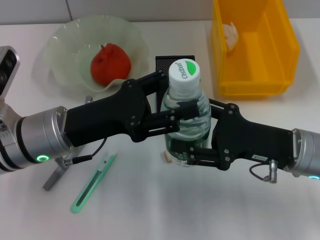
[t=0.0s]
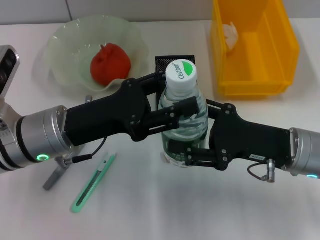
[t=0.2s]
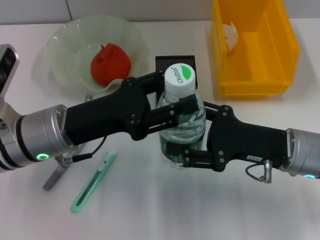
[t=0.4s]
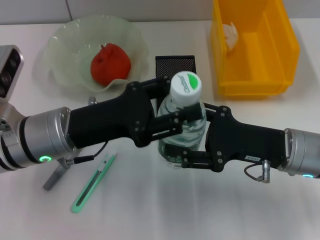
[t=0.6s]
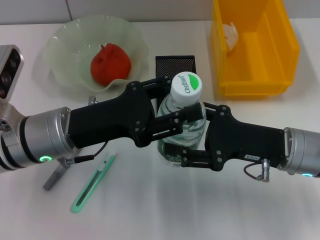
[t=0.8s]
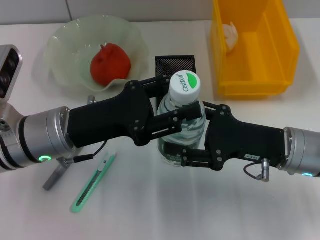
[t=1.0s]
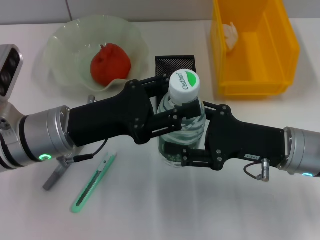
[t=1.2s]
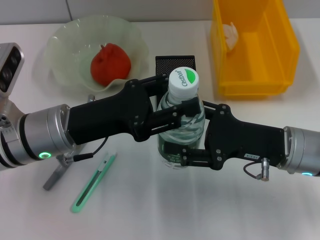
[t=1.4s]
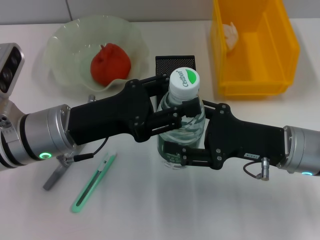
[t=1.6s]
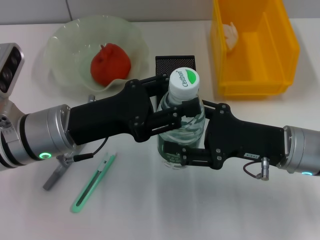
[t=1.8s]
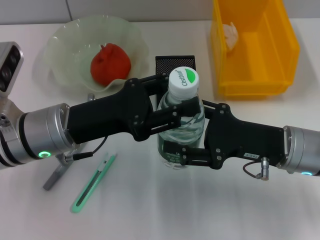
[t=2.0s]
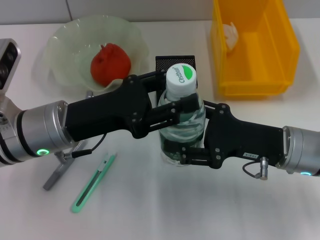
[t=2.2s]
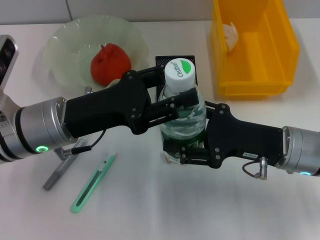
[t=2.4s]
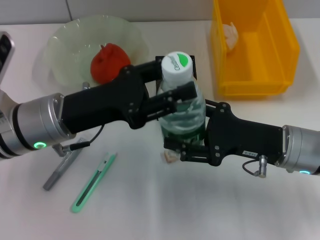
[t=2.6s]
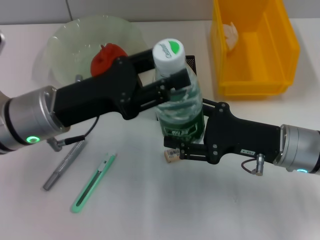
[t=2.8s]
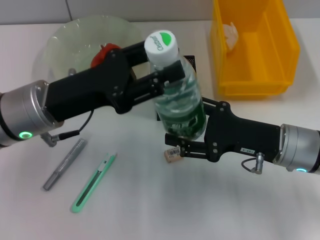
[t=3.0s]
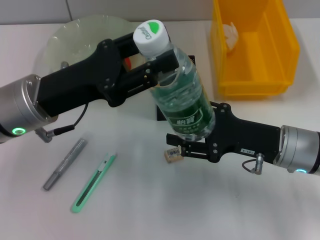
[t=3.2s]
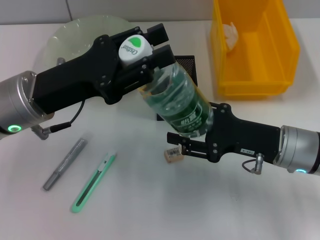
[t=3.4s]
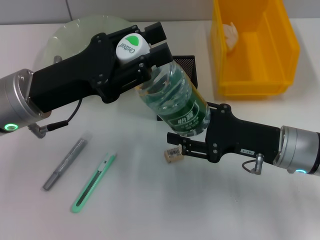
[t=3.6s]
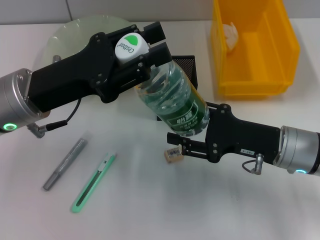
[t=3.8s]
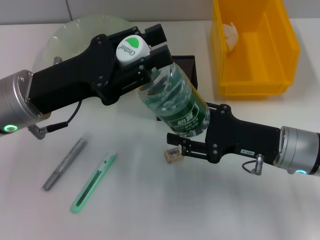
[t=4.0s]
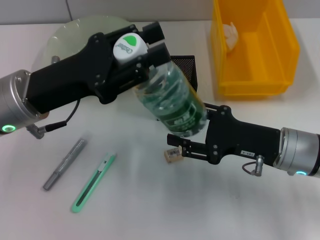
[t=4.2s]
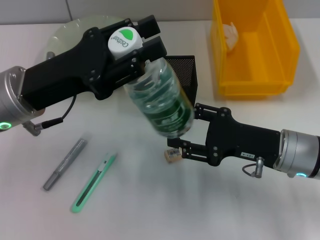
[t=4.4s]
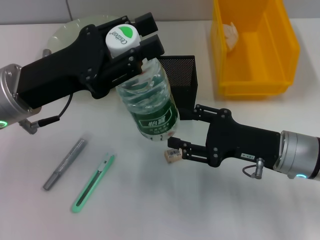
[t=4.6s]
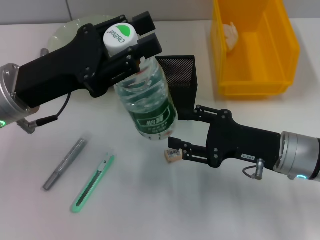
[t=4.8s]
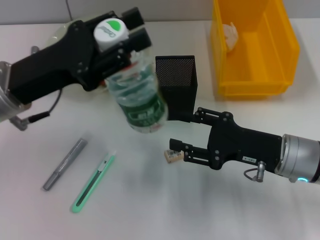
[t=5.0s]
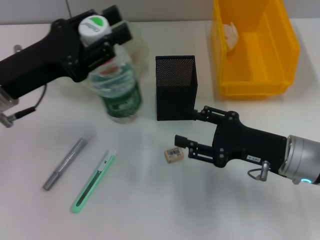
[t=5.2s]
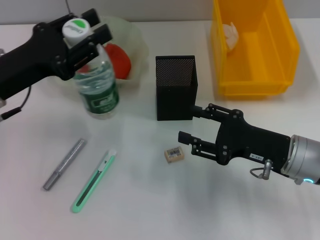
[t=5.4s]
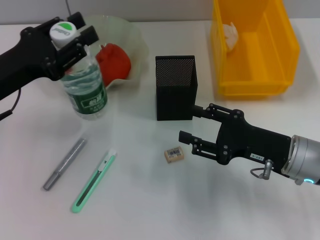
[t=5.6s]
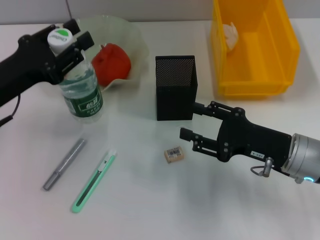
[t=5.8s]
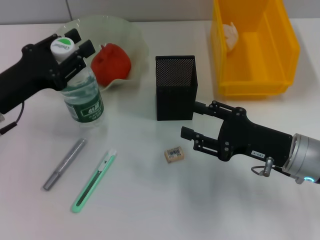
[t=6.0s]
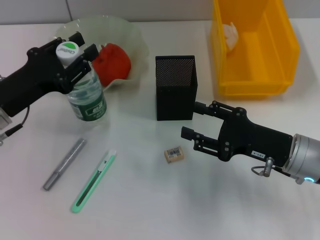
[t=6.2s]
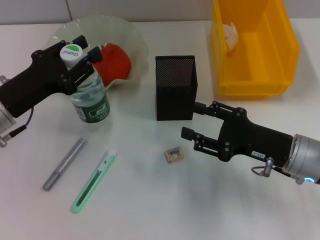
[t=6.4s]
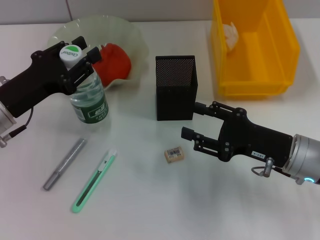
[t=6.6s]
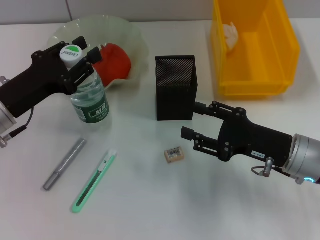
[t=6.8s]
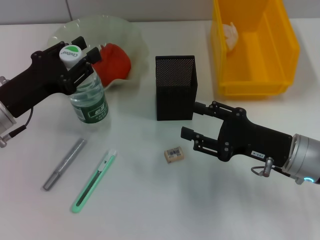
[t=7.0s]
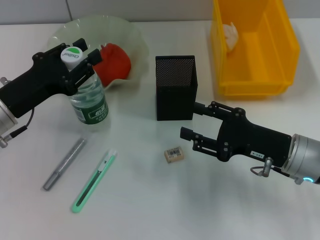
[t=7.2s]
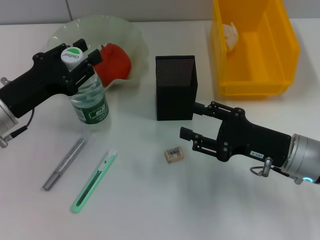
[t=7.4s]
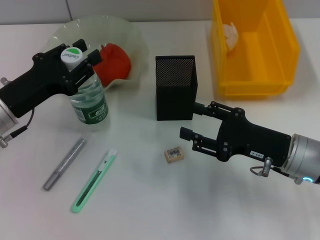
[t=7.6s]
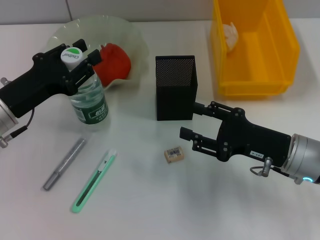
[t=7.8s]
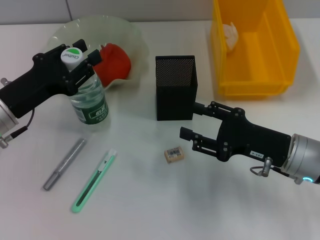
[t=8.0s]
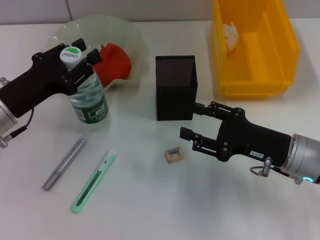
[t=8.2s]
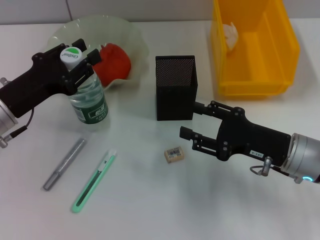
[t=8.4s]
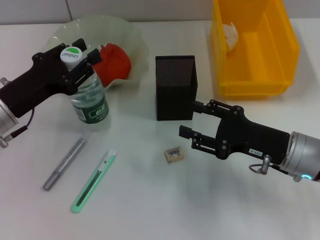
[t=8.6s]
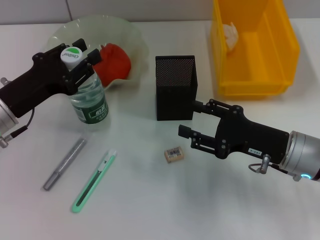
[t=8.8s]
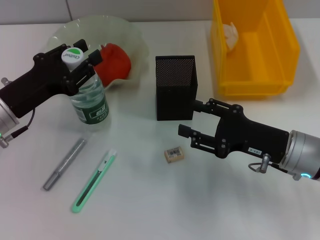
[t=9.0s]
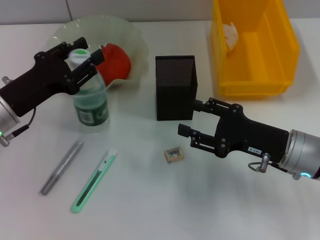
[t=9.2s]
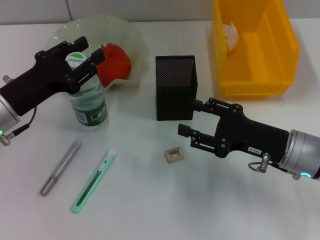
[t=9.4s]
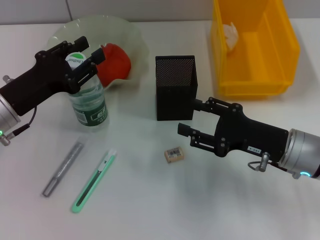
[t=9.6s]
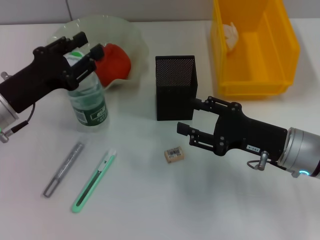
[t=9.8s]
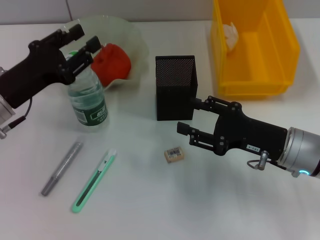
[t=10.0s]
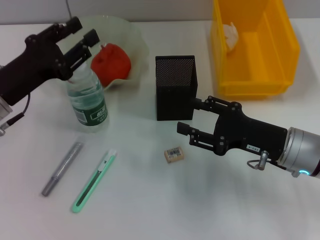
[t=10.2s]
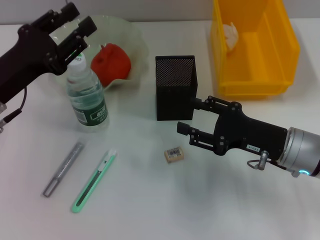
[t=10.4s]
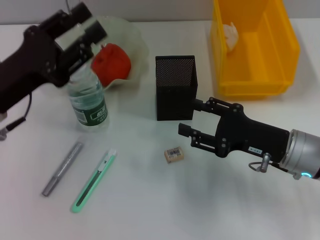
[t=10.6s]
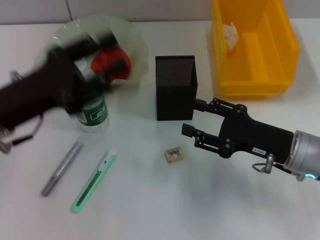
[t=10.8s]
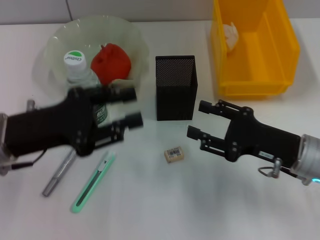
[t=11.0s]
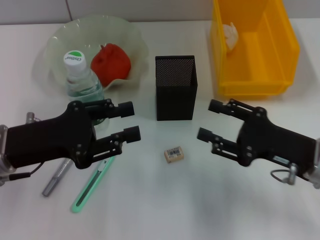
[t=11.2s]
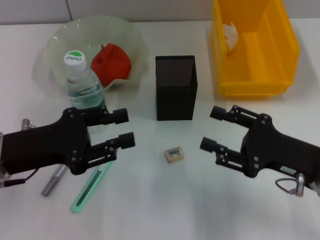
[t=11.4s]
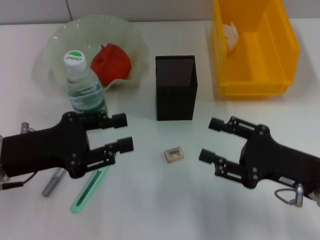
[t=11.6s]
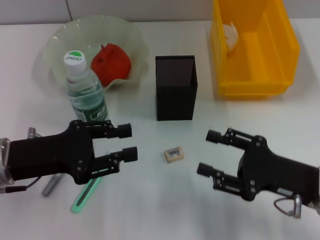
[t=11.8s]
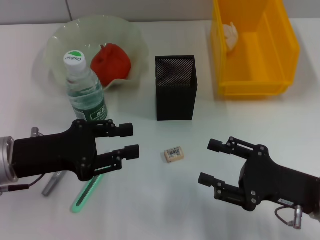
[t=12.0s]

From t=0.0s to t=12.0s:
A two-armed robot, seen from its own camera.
Step, from t=0.0s to t=3.4s: Pass the water bottle from the right hand to the left hand.
Step, from t=3.8s to t=9.8s: Place the water bottle on the table with the left hand.
From t=0.0s to t=1.6s: Both grippers stay put.
From t=4.4s to t=6.0s: The left gripper is displaced to the left by some 5 cm.
From t=6.0s to t=7.6s: There are only small adjustments of the grippers.
From t=7.6s to t=9.0s: The two grippers keep their place.
From t=9.0s to t=10.4s: The grippers stay close to where they were, moving slightly.
From t=10.4s to t=12.0s: The right gripper travels backward by roughly 5 cm.

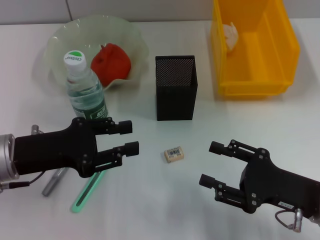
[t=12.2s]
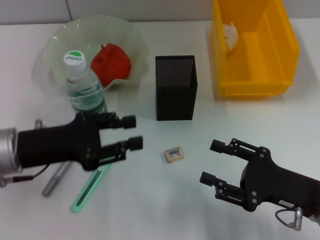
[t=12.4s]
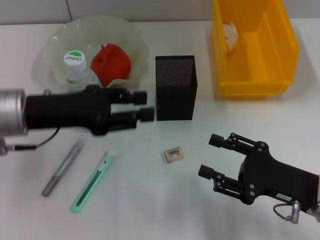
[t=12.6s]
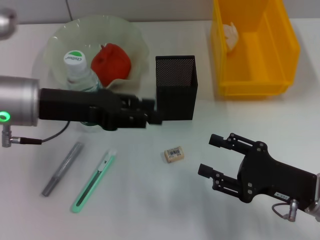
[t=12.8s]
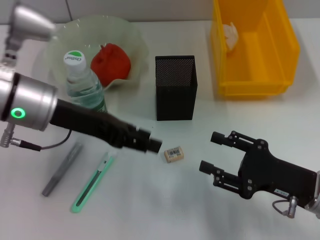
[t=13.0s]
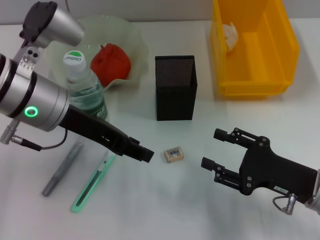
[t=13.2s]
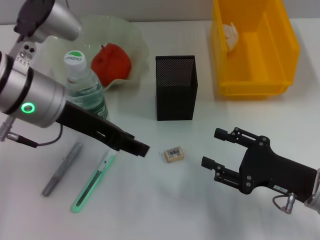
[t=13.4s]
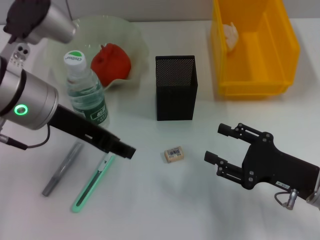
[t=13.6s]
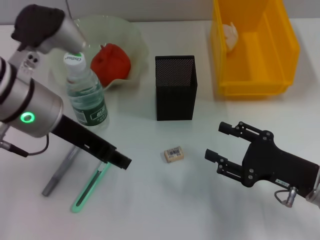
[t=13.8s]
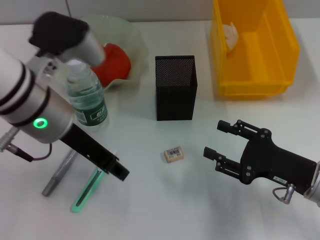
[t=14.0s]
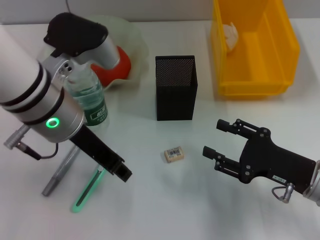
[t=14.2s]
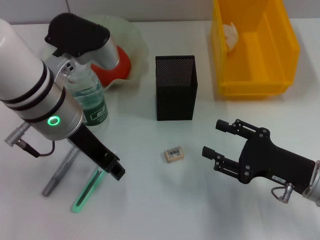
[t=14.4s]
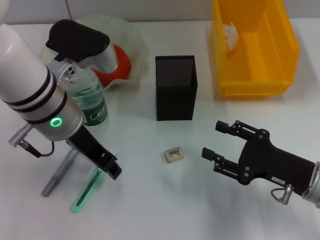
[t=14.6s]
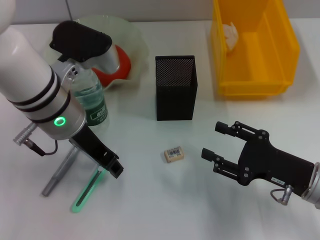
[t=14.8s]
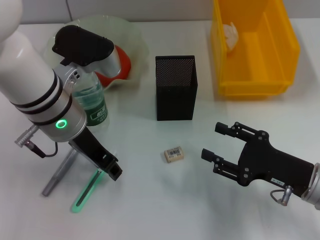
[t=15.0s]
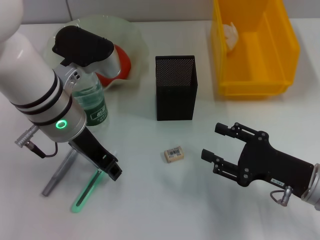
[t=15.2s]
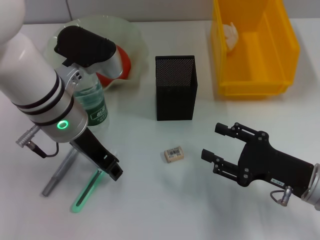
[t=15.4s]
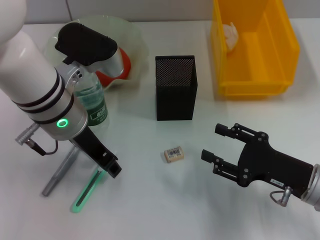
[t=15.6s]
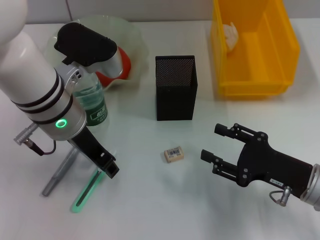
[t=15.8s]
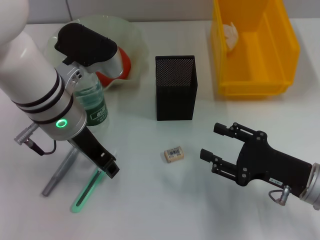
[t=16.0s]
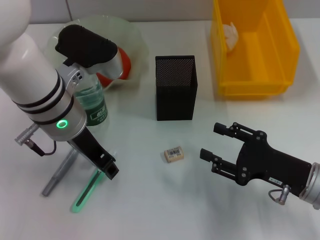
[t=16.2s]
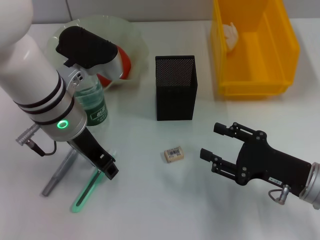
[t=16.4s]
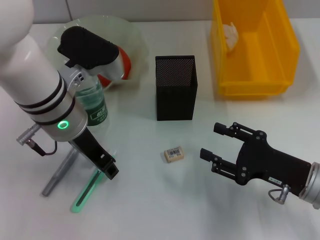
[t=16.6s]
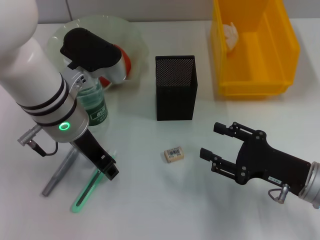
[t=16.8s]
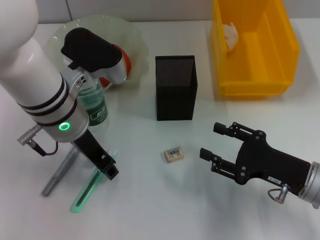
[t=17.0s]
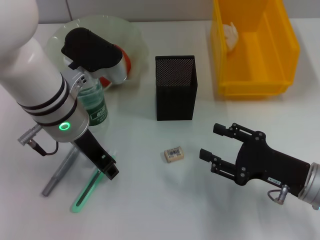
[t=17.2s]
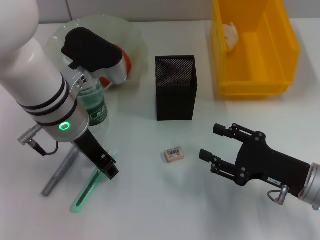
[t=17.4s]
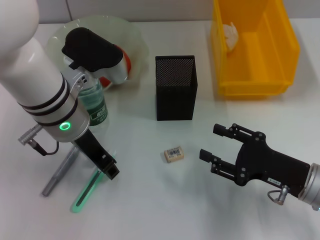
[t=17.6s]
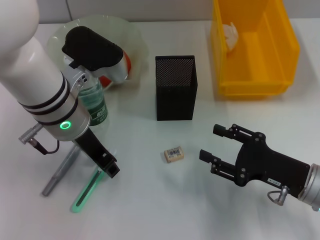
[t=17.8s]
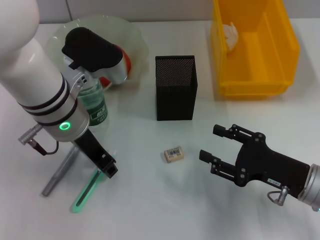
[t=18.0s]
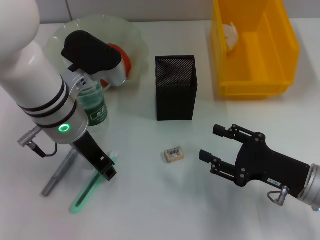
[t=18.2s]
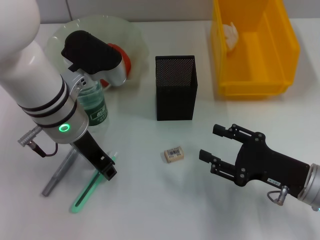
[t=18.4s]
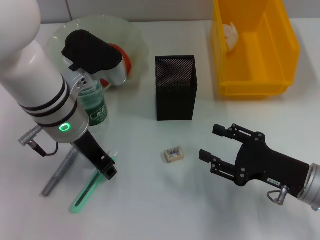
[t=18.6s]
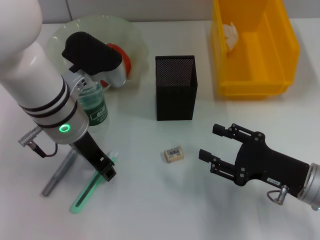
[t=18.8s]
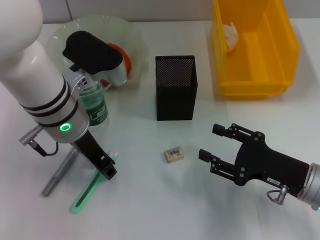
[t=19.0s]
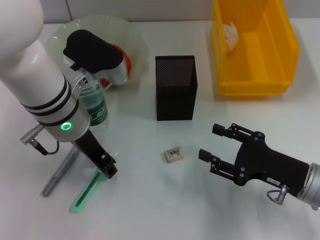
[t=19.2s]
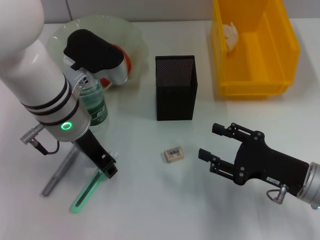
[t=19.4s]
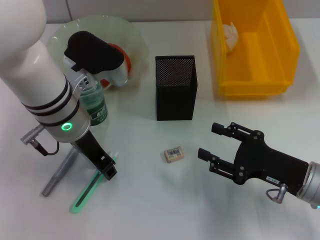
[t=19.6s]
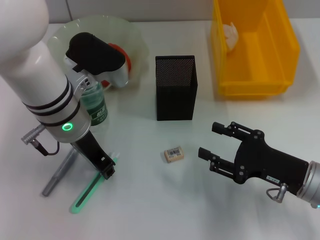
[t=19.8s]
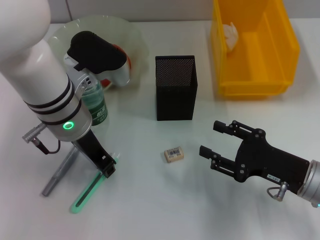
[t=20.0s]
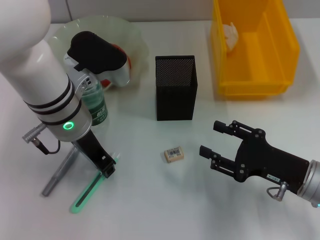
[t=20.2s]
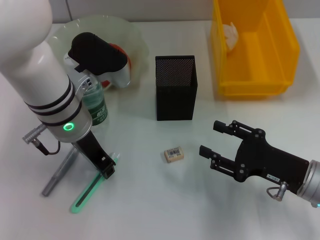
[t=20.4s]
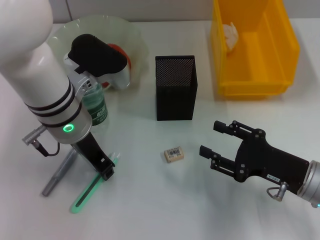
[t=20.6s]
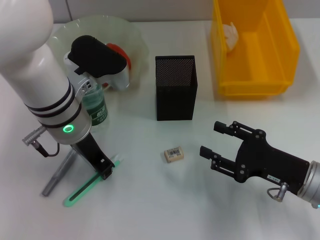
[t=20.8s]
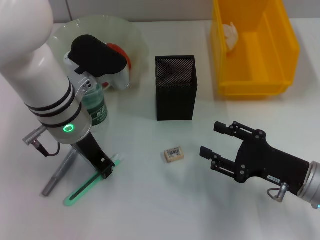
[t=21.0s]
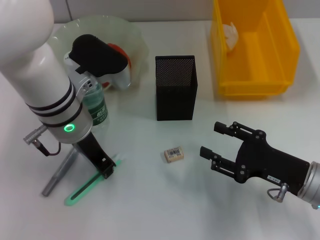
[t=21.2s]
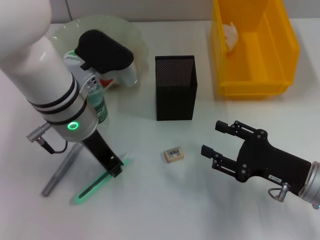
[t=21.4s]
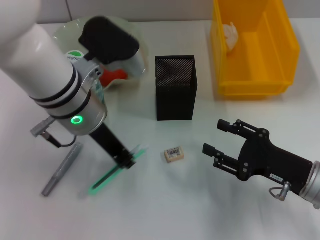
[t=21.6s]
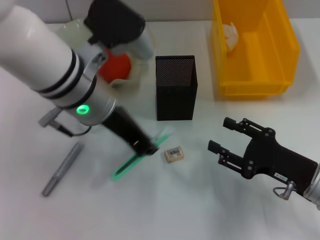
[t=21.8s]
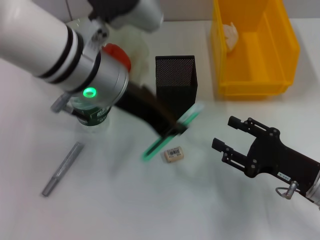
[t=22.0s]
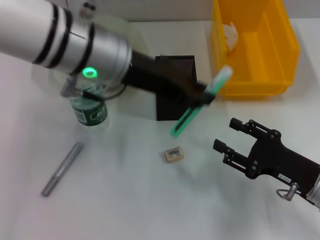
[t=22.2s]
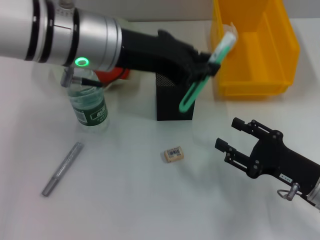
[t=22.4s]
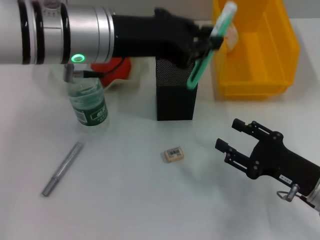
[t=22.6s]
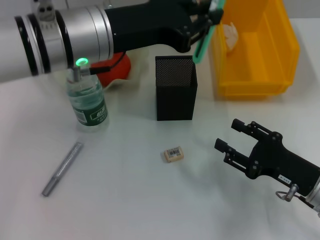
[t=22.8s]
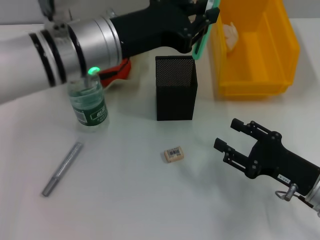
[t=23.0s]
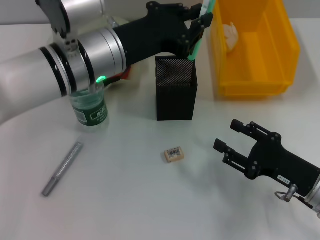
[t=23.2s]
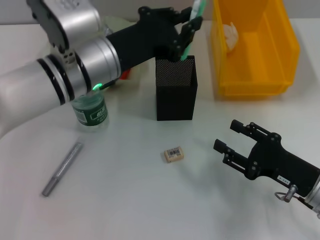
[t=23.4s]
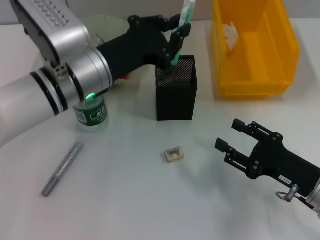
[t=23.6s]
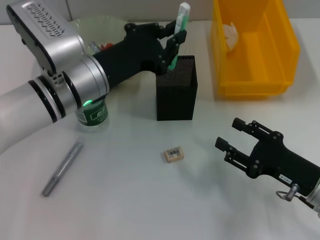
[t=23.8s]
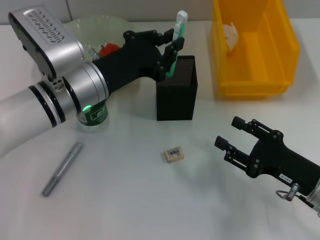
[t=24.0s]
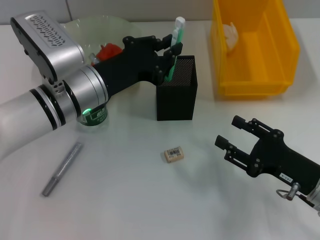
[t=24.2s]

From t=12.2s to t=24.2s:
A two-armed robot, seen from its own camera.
Step, from t=12.2s to t=21.2s: Grab the blue utility knife with the left hand.
From t=12.2s to t=13.8s: The left gripper goes about 15 cm upward, to the right and forward.
From t=13.8s to t=15.2s: The grippers move only a little.
From t=15.2s to t=16.6s: Both grippers stay put.
From t=16.6s to t=19.8s: Both grippers stay put.
From t=19.8s to t=21.2s: The two grippers keep their place.
From t=21.2s to t=22.6s: The left gripper heads upward, covering roughly 10 cm.
From t=22.6s to t=24.2s: The left gripper shifts about 10 cm downward.
